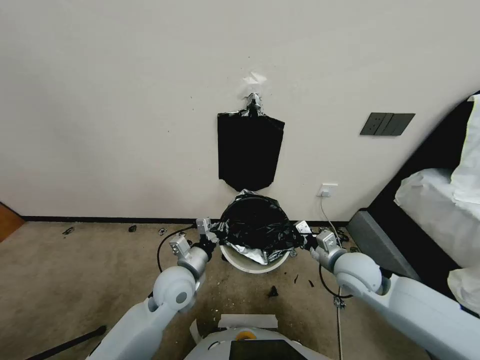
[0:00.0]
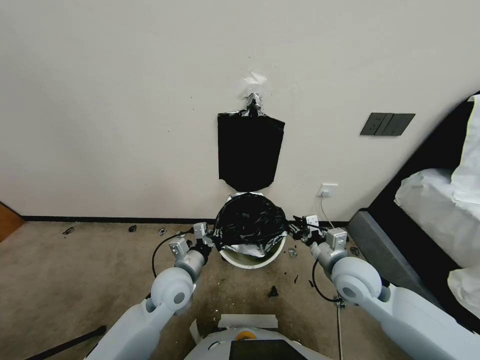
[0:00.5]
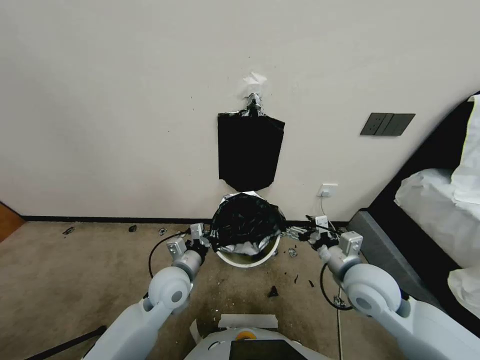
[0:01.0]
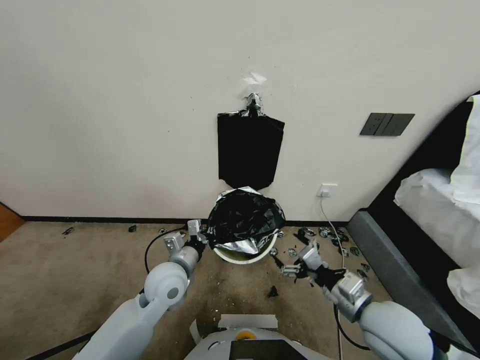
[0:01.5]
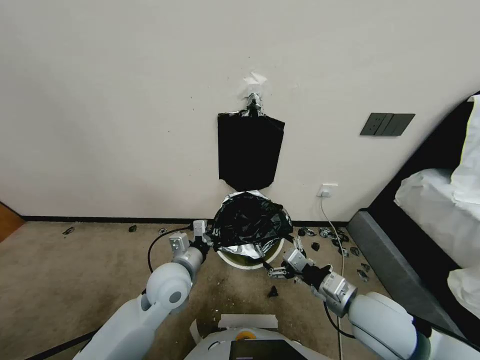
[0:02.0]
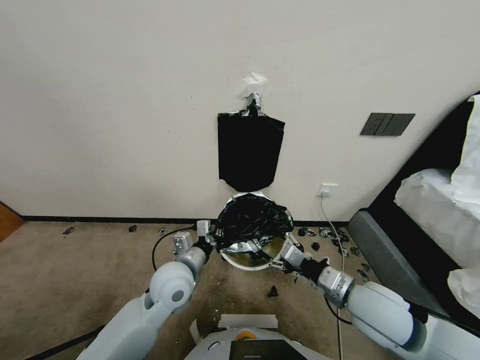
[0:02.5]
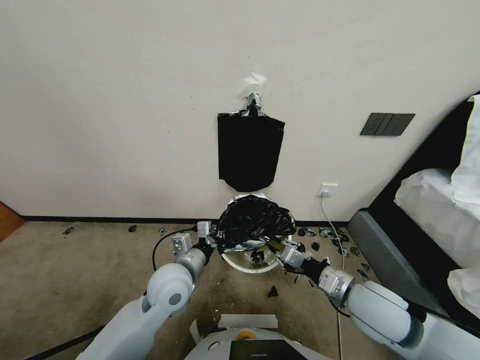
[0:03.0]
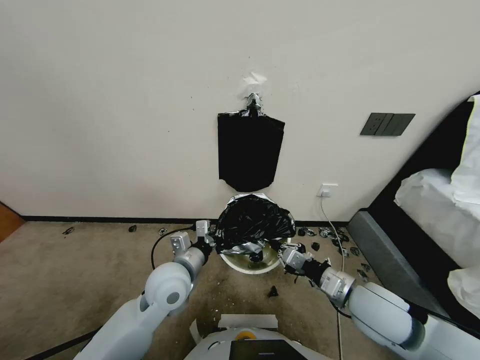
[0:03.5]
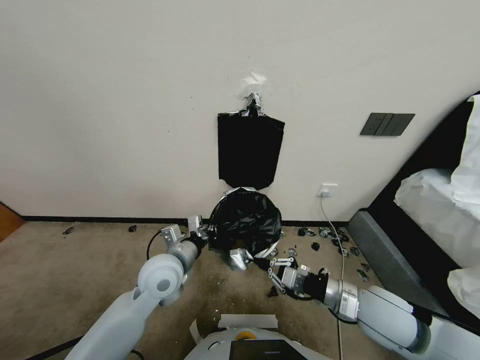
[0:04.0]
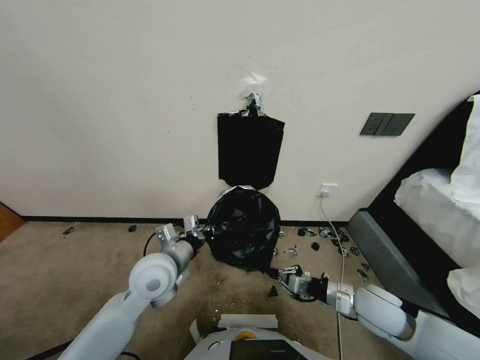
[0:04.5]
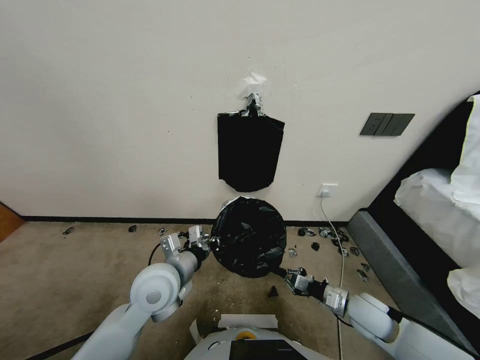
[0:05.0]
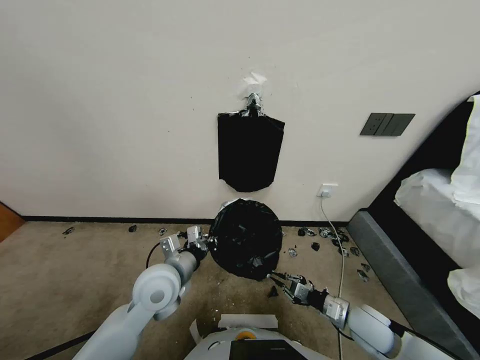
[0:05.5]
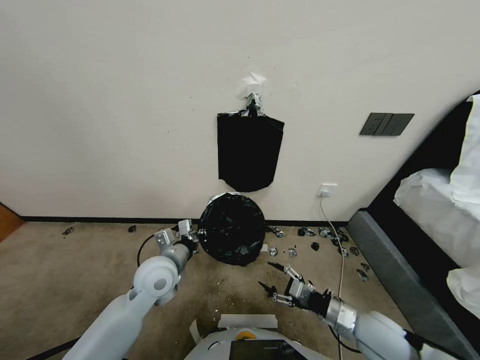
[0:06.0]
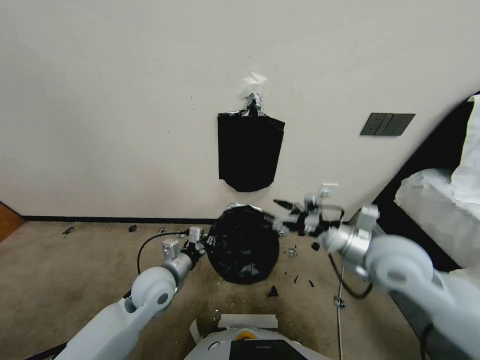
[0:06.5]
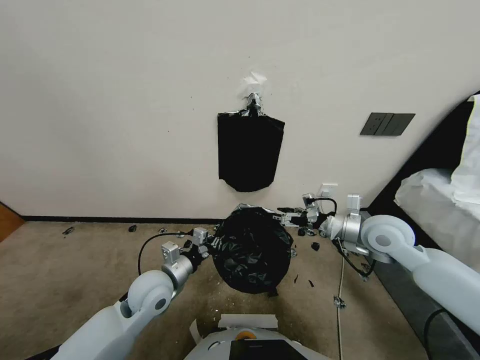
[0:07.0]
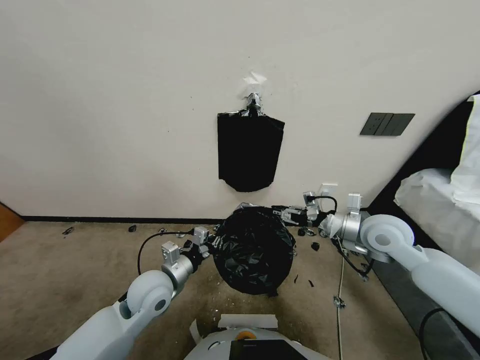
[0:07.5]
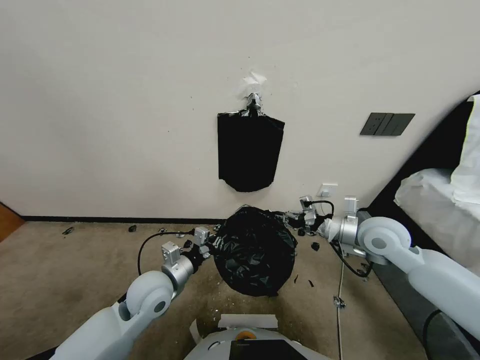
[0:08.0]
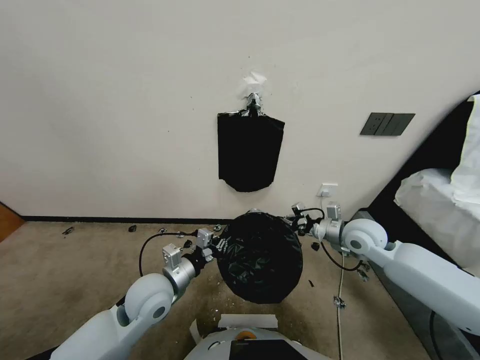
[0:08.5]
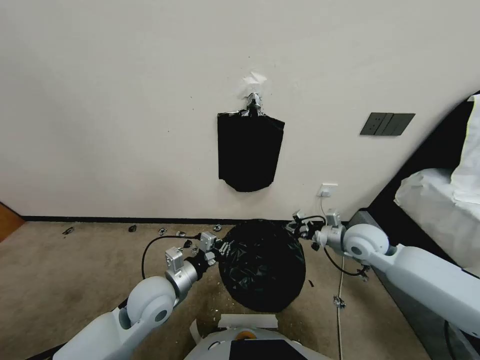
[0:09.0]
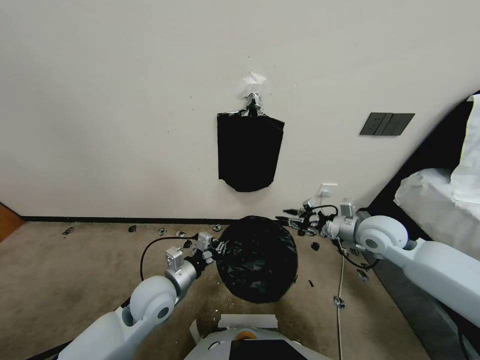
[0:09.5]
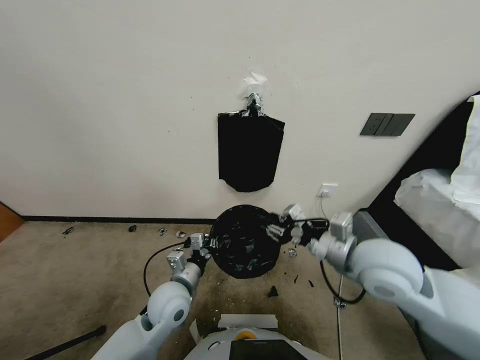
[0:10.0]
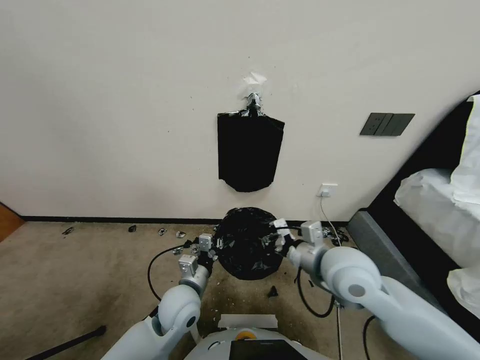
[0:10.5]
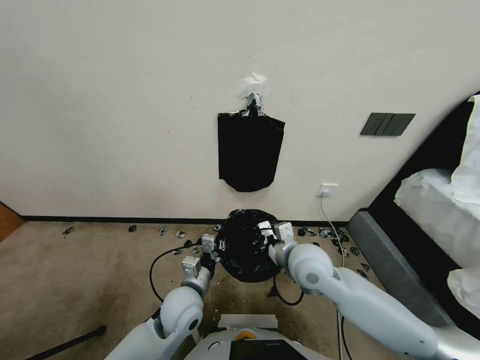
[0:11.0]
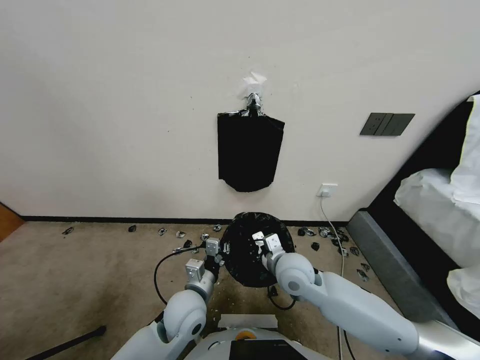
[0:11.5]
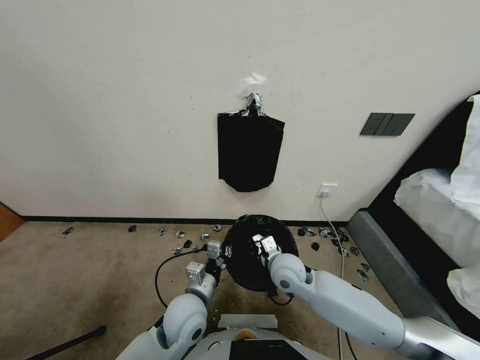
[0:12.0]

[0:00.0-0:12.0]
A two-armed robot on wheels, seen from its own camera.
Task of the whole recording: Place a trash bag onto the trash bin.
0:00.0 to 0:02.0: The right gripper heads backward, covering about 10 cm, and opens its fingers.
0:02.0 to 0:04.0: The right gripper closes its fingers.
0:04.0 to 0:06.0: The right gripper travels downward and back again, some 15 cm each way, and opens up.
0:06.0 to 0:08.0: The right gripper goes approximately 20 cm forward and upward, and closes.
0:08.0 to 0:10.0: The left gripper shifts by some 5 cm. Meanwhile the right gripper travels backward and to the left by roughly 15 cm, and opens and closes again.
0:10.0 to 0:12.0: The left gripper shifts by roughly 5 cm; the right gripper is displaced downward, to the left and forward by roughly 20 cm.

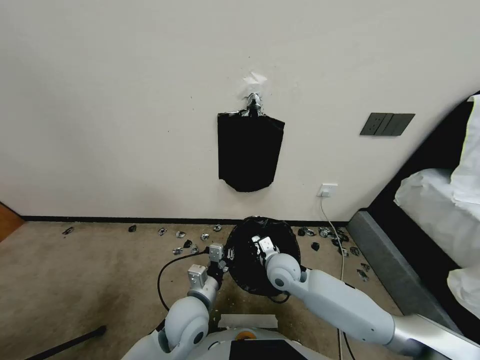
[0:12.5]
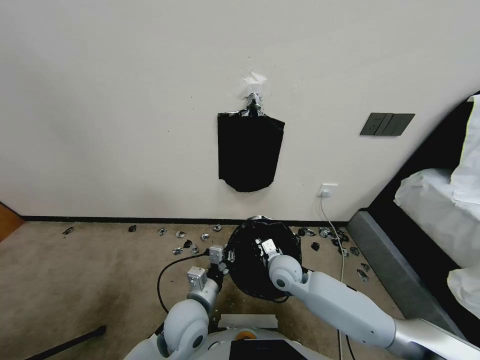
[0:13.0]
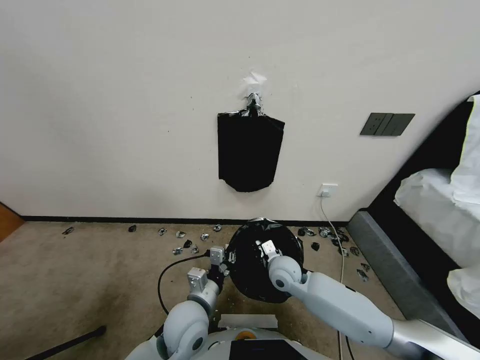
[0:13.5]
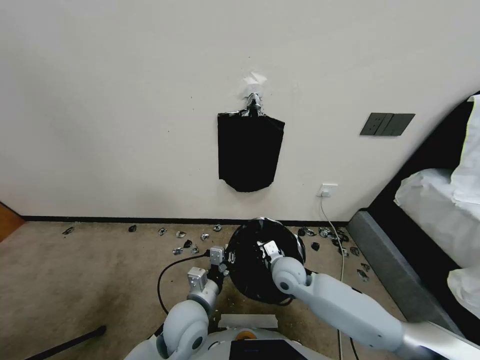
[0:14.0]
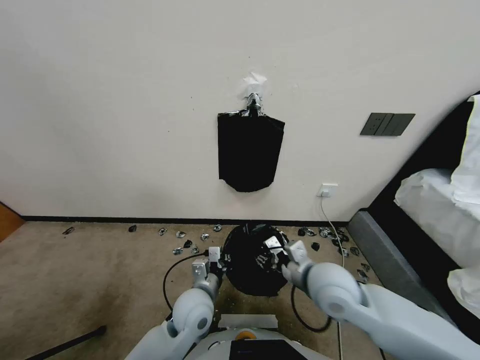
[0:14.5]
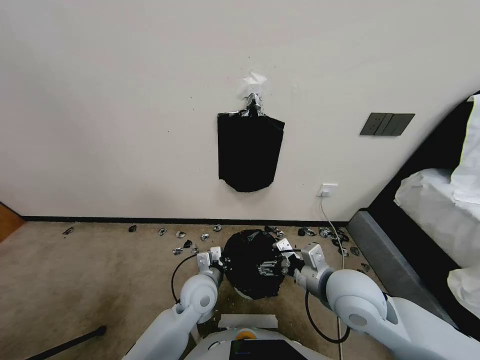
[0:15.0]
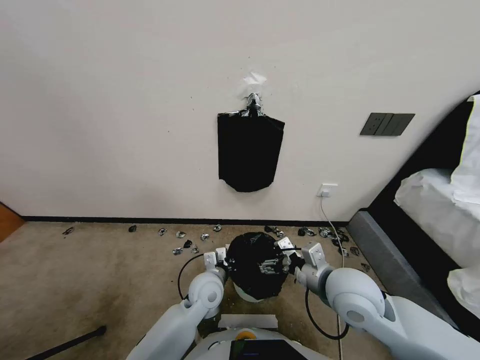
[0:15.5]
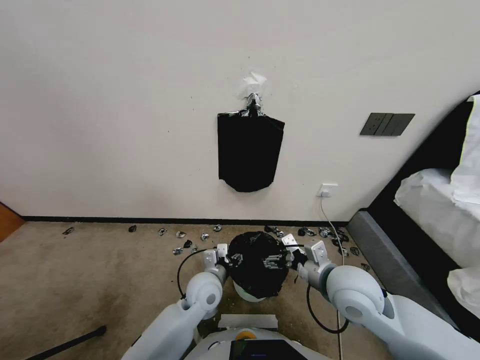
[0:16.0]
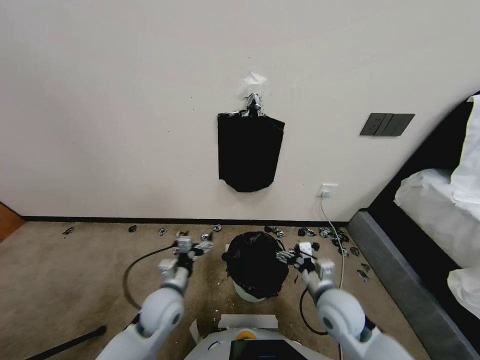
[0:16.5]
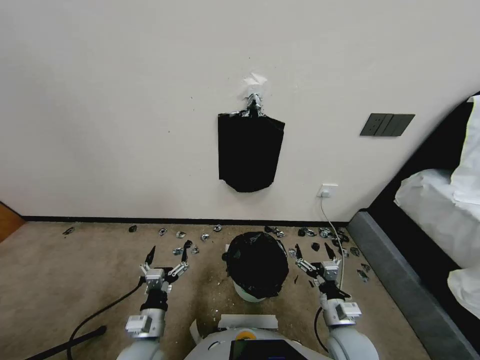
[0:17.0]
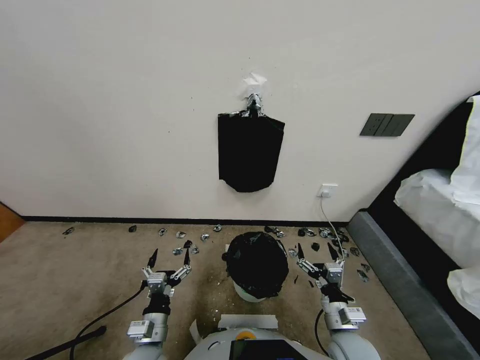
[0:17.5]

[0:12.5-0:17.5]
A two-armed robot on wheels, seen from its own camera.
Task of the whole recording: Place a trash bag onto the trash bin.
0:12.5 to 0:15.0: The left gripper heads forward, covering about 5 cm, while the right gripper heads upward, backward and to the right, covering about 20 cm, and opens.
0:15.0 to 0:17.5: The left gripper shifts some 20 cm backward and to the left, and opens its fingers. Meanwhile the right gripper moves downward and backward, about 20 cm.
